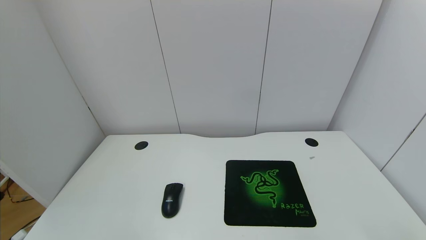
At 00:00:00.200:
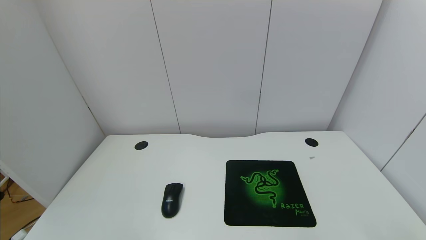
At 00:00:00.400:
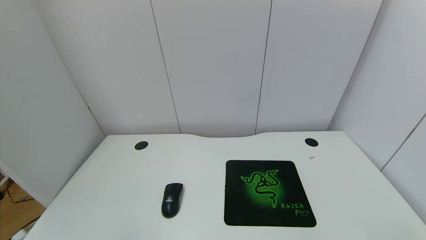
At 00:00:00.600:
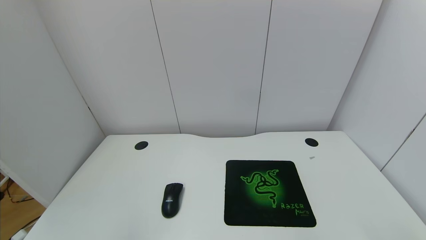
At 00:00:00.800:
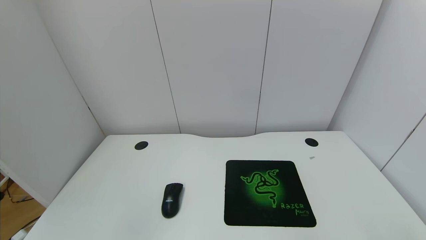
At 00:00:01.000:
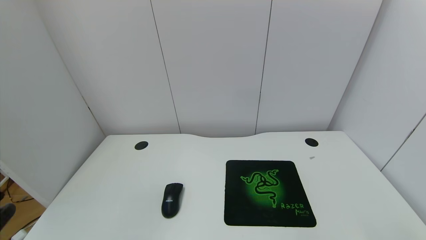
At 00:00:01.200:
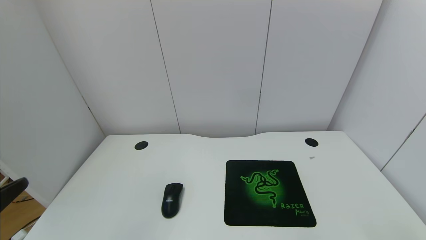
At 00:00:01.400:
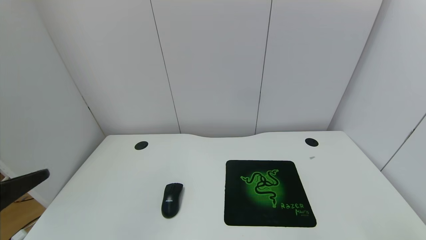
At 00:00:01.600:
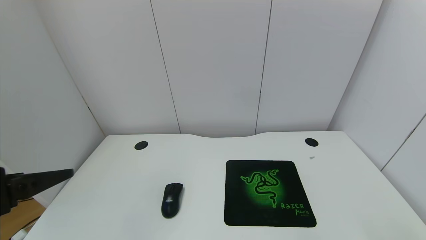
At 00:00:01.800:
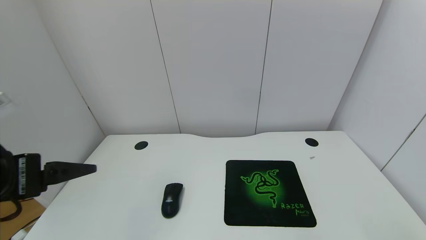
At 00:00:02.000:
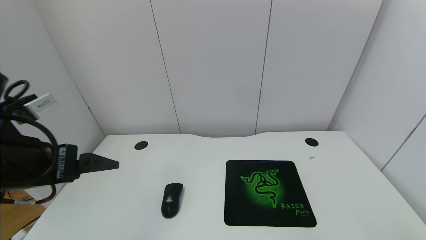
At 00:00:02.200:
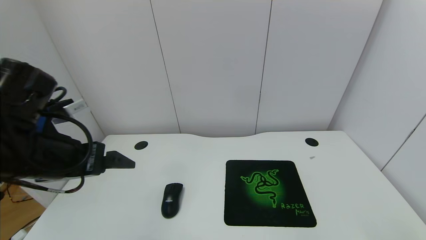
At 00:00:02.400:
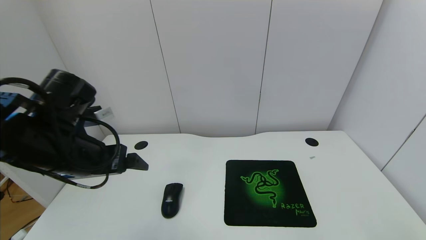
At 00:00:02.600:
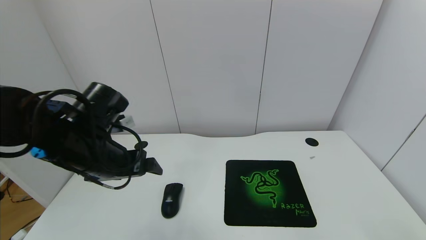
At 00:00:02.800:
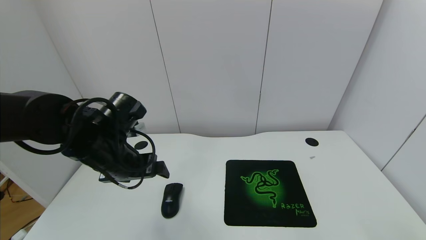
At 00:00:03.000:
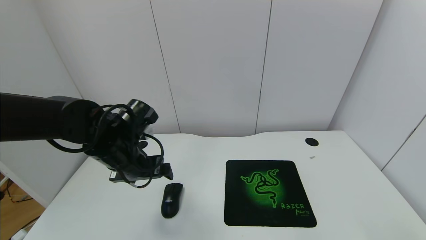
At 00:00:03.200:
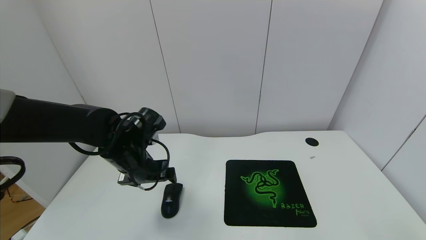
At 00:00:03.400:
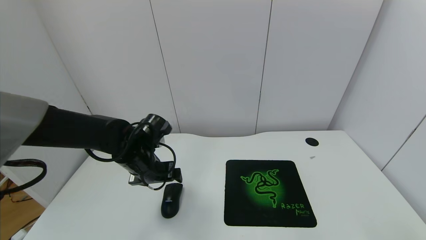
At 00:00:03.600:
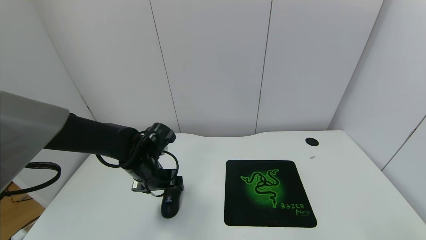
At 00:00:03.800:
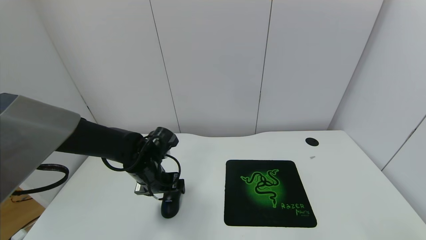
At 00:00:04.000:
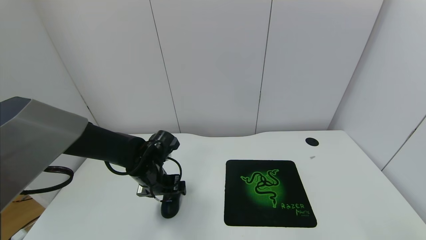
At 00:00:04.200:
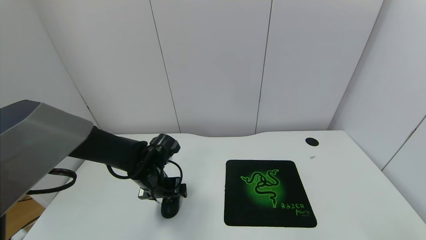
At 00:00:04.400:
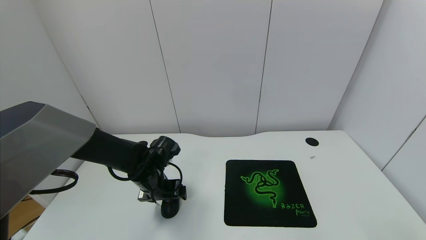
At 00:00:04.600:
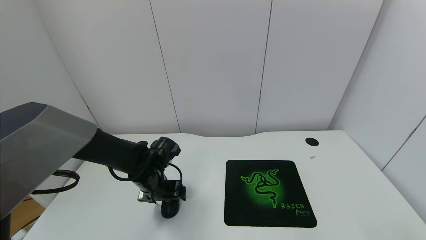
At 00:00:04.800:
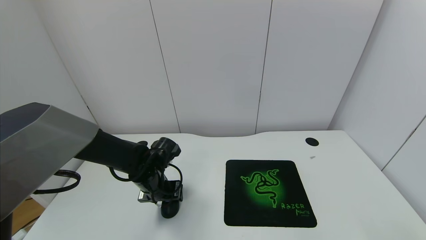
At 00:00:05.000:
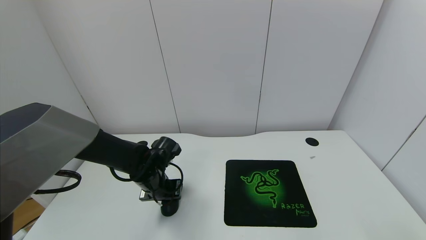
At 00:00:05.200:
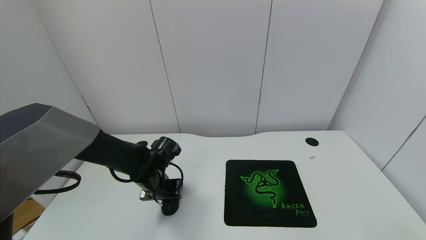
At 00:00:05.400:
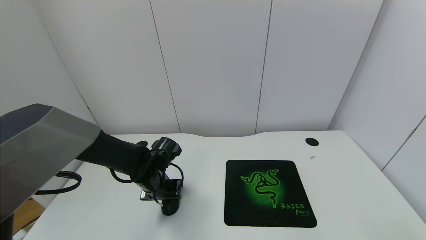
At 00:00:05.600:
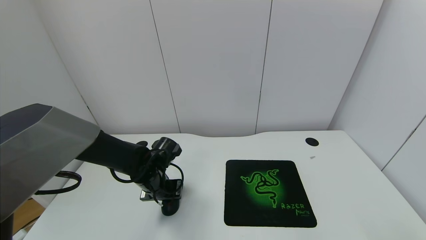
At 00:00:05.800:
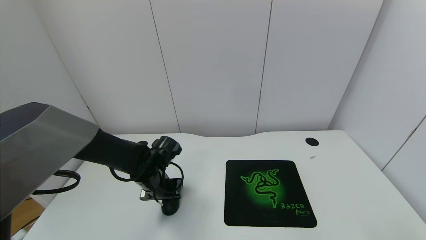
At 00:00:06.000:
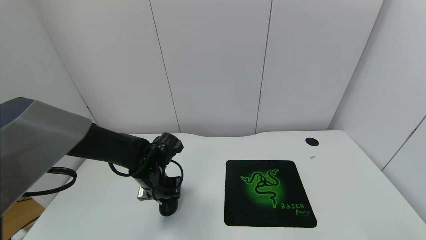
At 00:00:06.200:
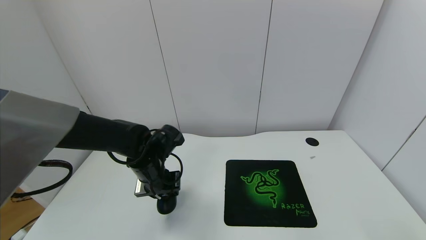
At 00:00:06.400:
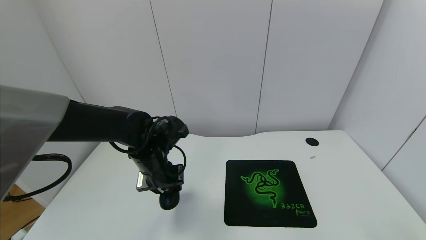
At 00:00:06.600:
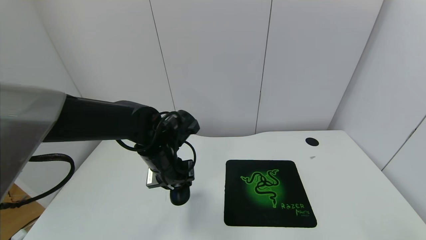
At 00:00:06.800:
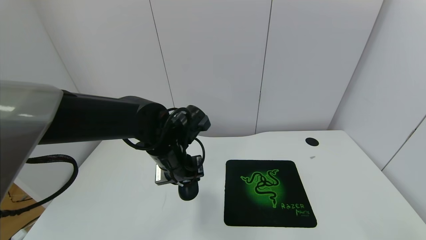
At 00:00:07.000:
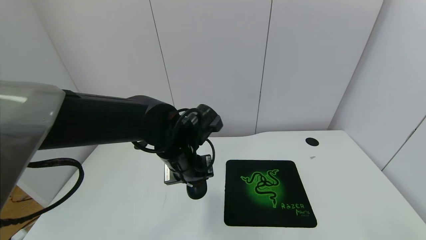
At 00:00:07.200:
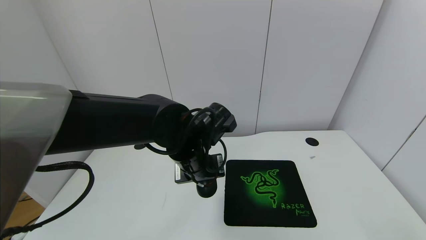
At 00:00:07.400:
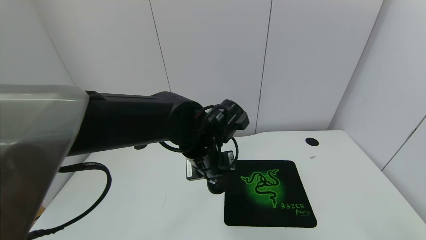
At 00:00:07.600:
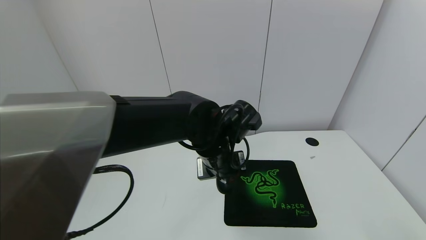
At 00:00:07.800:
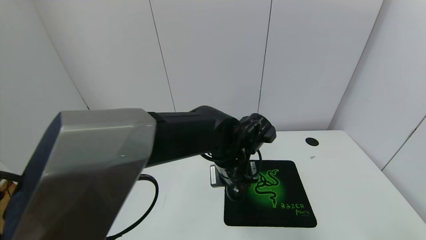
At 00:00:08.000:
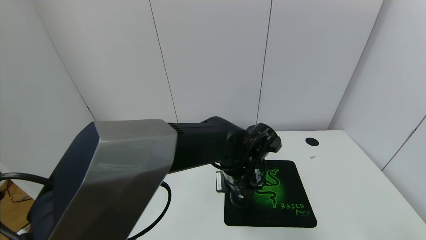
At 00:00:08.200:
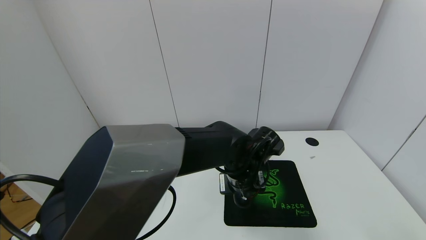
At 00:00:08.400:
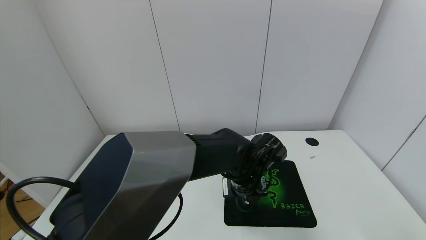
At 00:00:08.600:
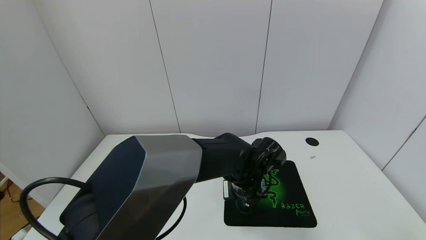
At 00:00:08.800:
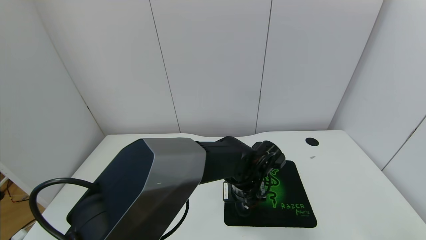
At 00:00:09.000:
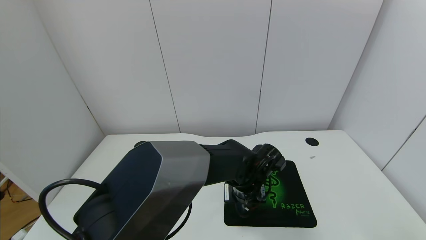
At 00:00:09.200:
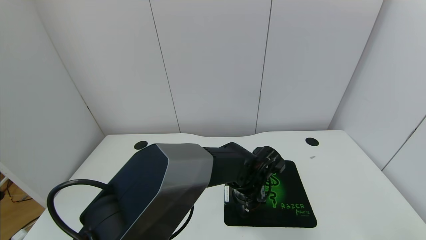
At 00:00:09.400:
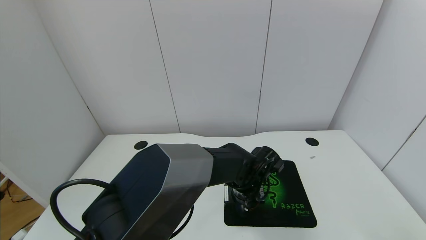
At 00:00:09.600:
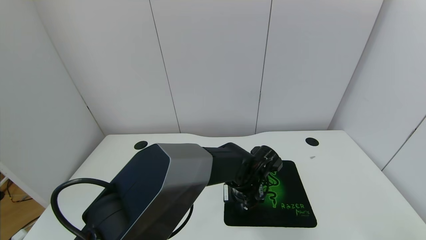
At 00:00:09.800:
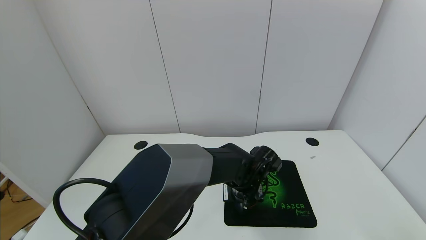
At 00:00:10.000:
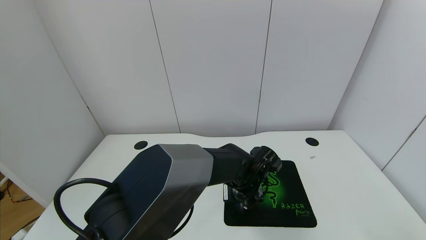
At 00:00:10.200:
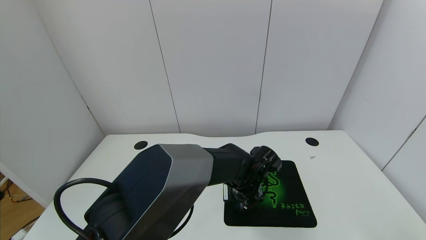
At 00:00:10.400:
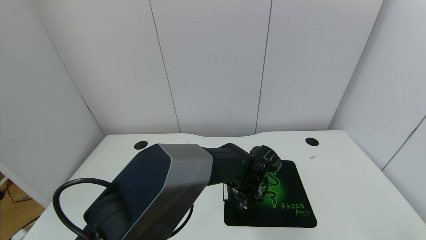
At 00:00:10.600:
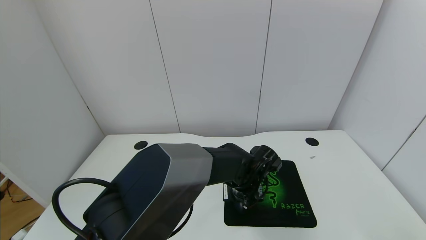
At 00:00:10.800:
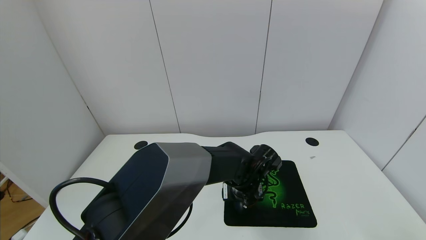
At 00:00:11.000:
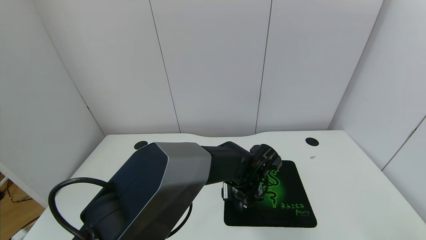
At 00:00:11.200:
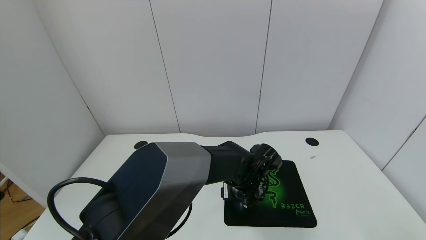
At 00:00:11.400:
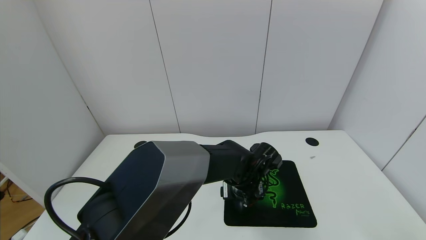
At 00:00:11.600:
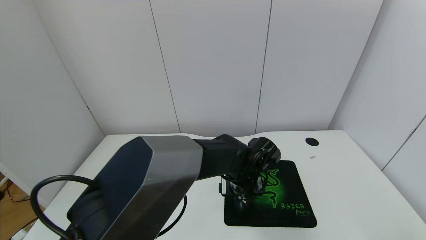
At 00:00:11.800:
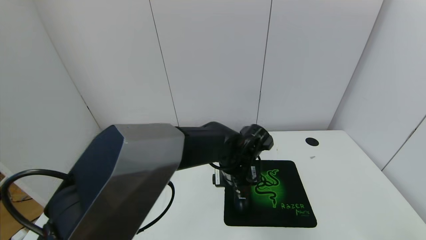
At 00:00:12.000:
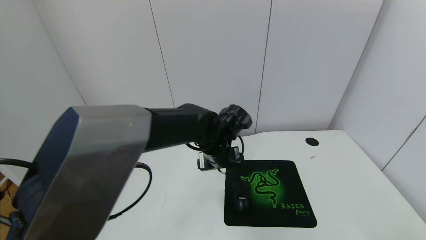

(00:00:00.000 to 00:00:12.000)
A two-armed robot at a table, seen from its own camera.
Task of the whole recording: use the gripper to move the mouse from one side of the table to the mouse pad on the opposite side.
Step, 00:00:00.000 - 00:00:05.200: Grasp the mouse with the left gripper.
Step, 00:00:05.400 - 00:00:12.000: Place the mouse on the mouse pad with the left gripper.
00:00:00.000 - 00:00:01.600: The left gripper travels forward and upward by roughly 10 cm.
00:00:01.600 - 00:00:03.000: The left gripper is displaced forward, to the right and downward by roughly 25 cm.
00:00:03.000 - 00:00:04.400: The left gripper moves downward, about 10 cm.
00:00:04.400 - 00:00:06.000: The left gripper closes its fingers.
00:00:06.000 - 00:00:07.600: The left gripper moves to the right and upward, some 20 cm.
00:00:07.600 - 00:00:09.000: The left gripper travels downward and to the right by about 10 cm.
00:00:09.000 - 00:00:10.400: The left gripper opens up.
00:00:10.400 - 00:00:12.000: The left gripper moves upward and to the left, approximately 10 cm, and opens its fingers.

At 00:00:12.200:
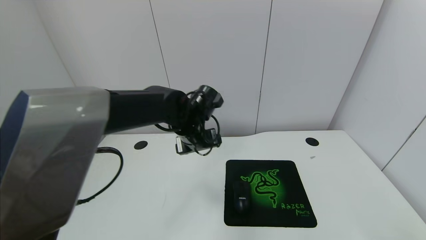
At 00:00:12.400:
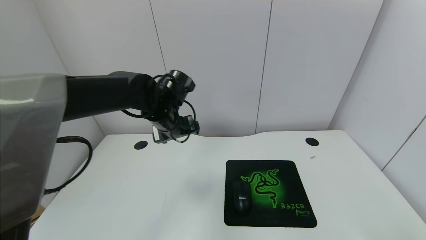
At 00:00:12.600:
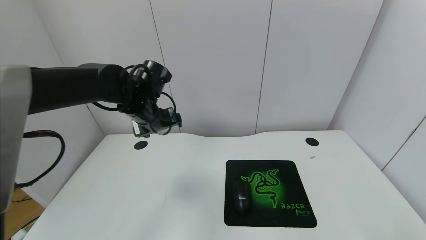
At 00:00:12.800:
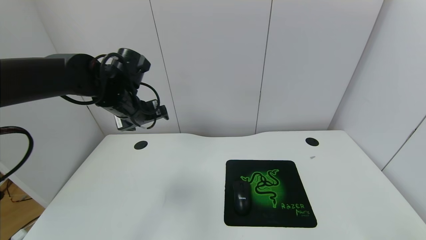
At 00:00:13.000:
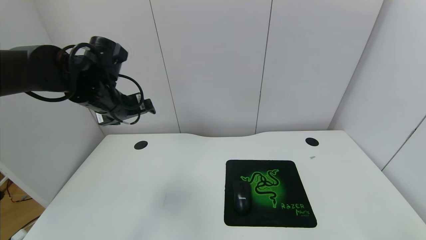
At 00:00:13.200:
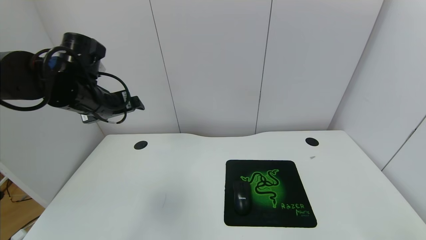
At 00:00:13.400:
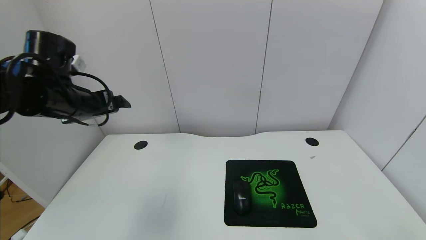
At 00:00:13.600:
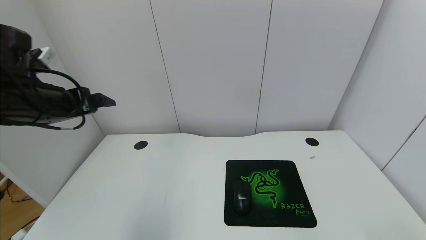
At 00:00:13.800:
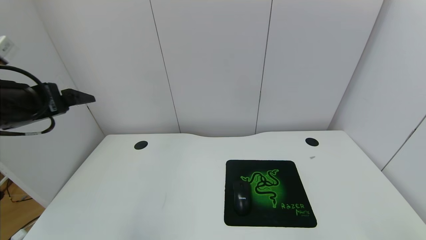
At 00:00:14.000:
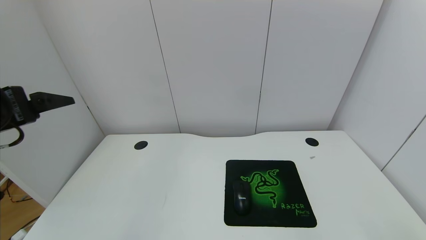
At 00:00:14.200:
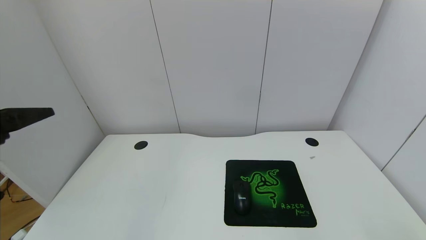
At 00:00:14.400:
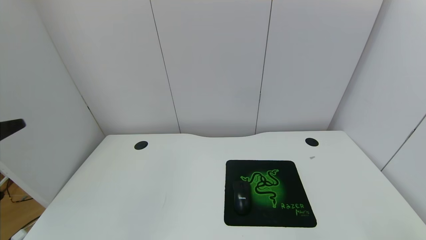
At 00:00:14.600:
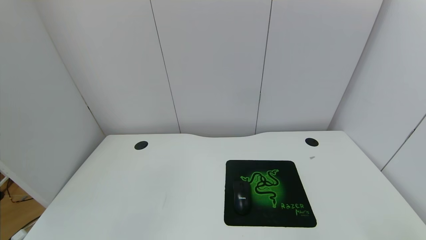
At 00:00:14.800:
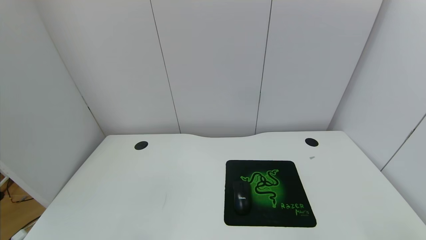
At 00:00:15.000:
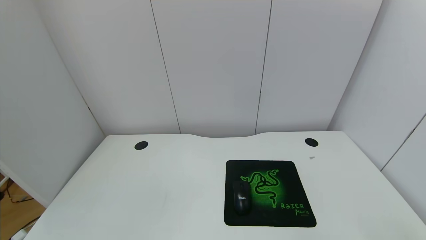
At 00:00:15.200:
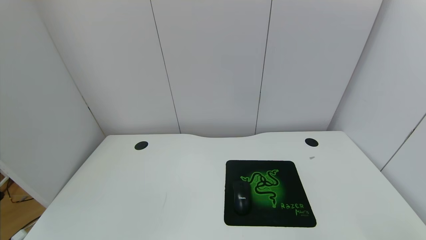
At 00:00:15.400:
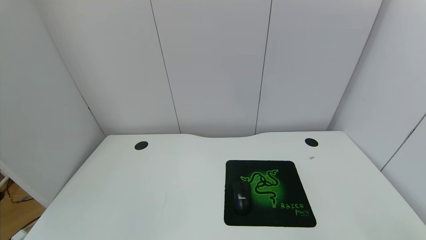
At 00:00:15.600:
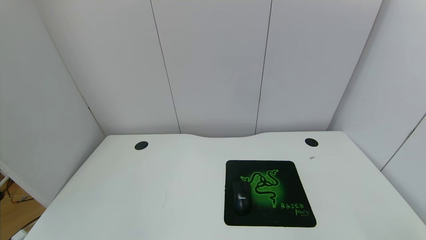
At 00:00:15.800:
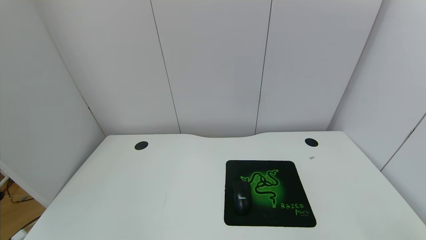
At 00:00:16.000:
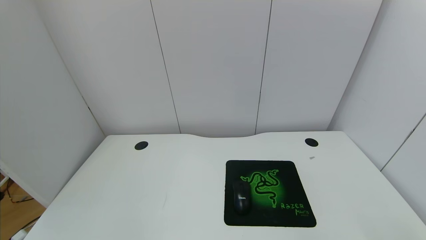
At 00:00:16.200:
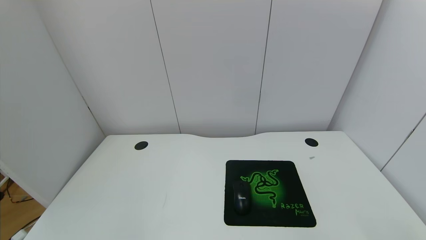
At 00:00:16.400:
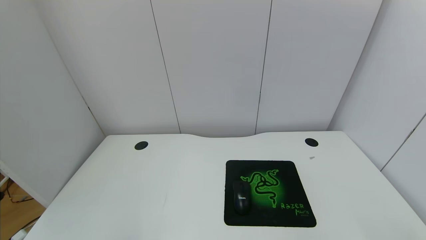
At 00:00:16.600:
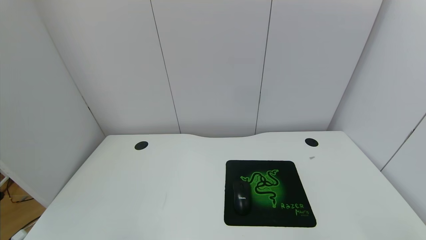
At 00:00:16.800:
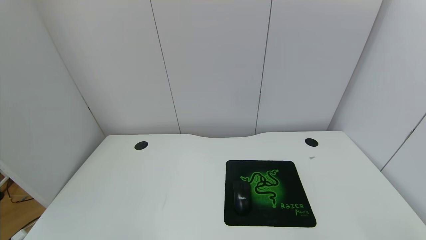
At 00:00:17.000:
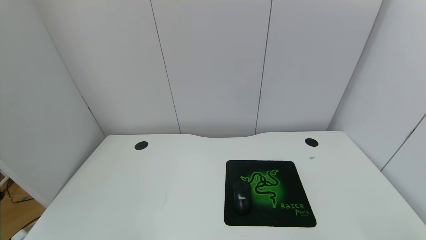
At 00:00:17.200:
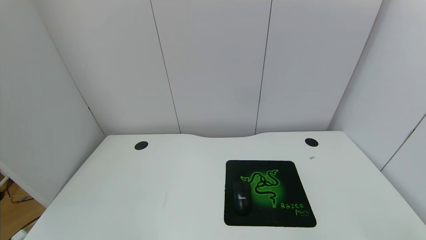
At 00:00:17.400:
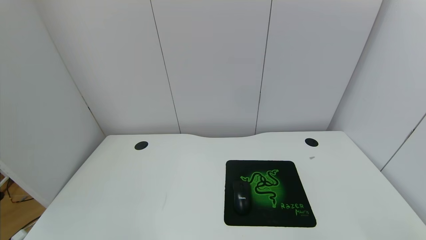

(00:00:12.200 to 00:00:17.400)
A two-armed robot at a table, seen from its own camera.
Task of the whole recording: use the gripper to move the mouse from one side of the table to the mouse pad on the opposite side.
00:00:12.200 - 00:00:14.000: The left gripper travels to the left, backward and upward by about 30 cm.
00:00:14.000 - 00:00:15.600: The left gripper is displaced backward by about 25 cm.
